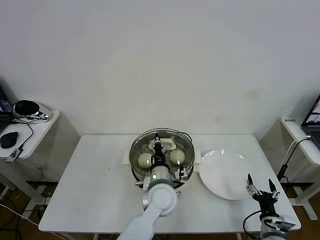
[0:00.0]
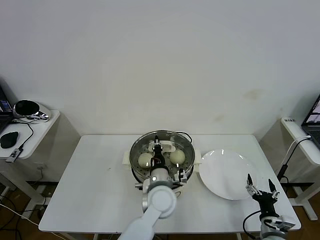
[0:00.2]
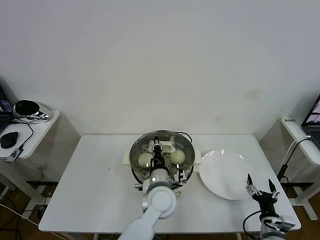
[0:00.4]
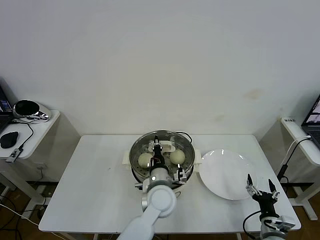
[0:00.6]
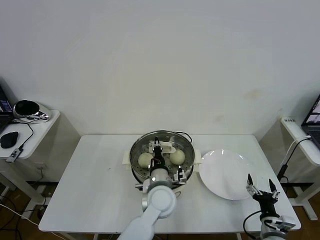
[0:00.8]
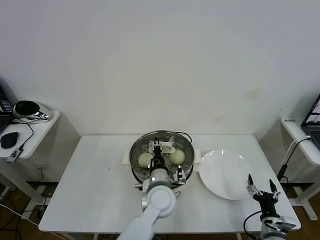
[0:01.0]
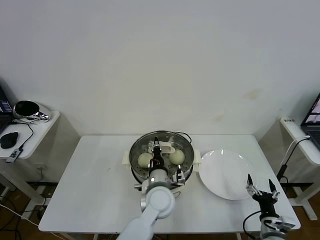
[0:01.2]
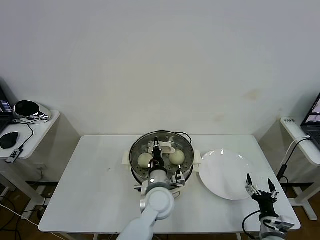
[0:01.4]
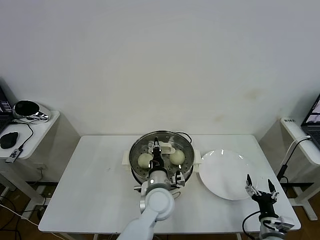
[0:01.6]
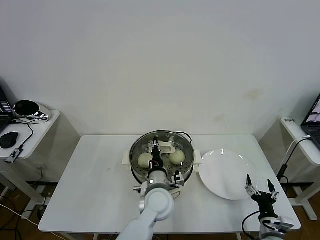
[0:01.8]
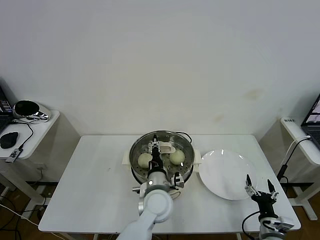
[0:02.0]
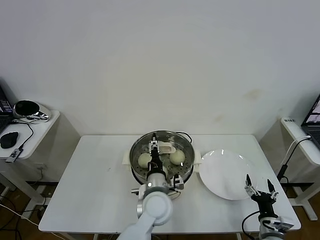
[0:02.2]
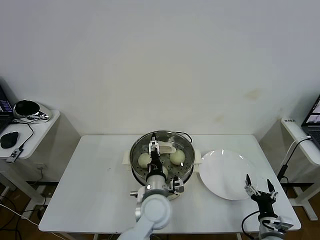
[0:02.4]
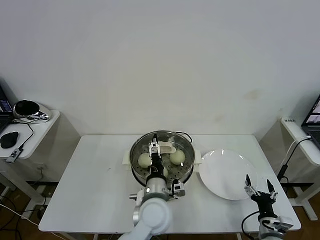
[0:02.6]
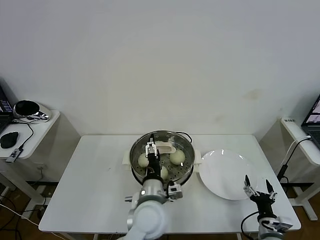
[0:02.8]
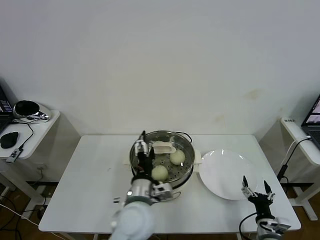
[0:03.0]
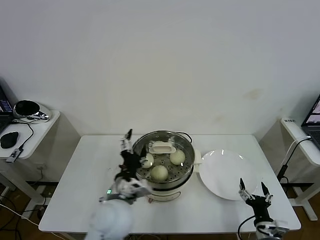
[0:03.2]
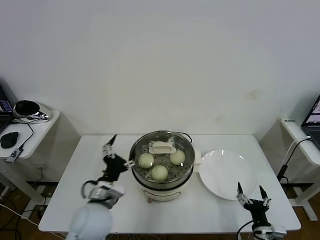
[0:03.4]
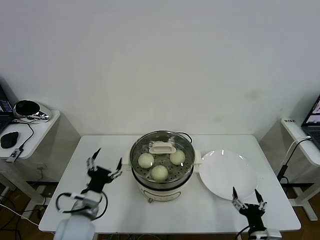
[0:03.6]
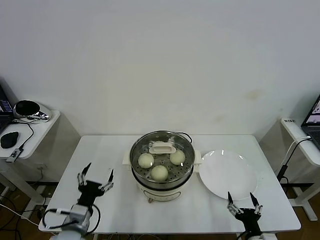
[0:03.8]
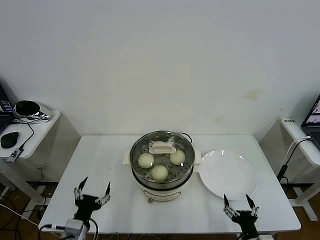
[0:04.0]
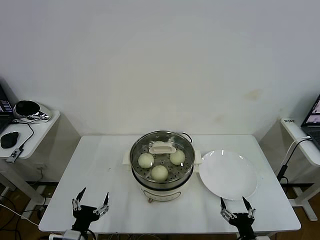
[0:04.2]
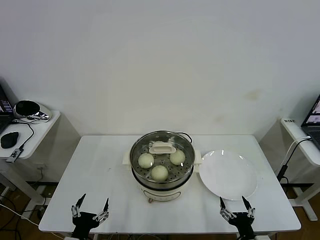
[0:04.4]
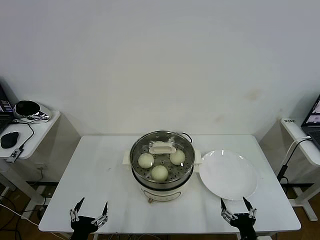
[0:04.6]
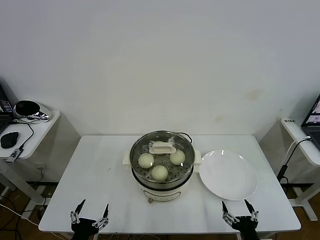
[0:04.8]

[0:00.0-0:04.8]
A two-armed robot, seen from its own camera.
Task of the whole recording: take steamed baozi put them in steamer then cover it.
Step, 0:00.0 to 0:02.6: Place the pot lid on the steamer with left gripper.
0:00.0 to 0:01.6: The grippers move only a little.
0:01.6 to 0:03.2: The left gripper moves to the left, upward and backward, roughly 15 cm, and opens its fingers.
0:03.2 to 0:04.8: The right gripper moves backward and to the left, some 10 cm. Meanwhile the left gripper shifts roughly 25 cm to the left, backward and downward.

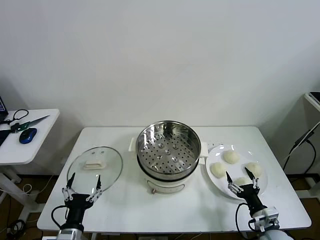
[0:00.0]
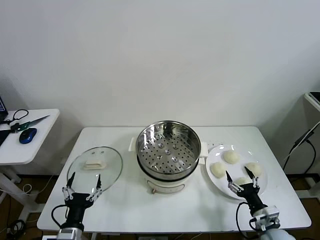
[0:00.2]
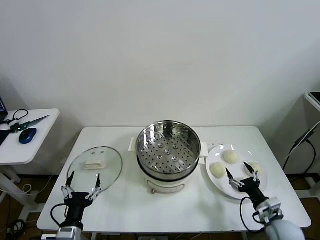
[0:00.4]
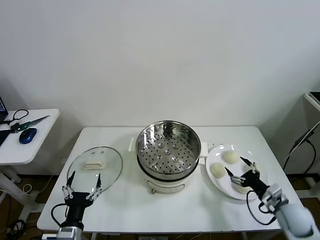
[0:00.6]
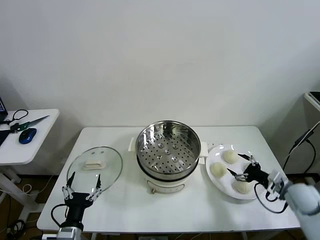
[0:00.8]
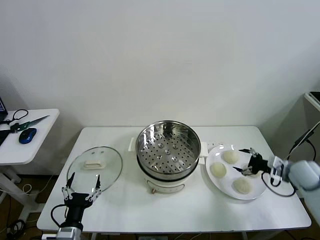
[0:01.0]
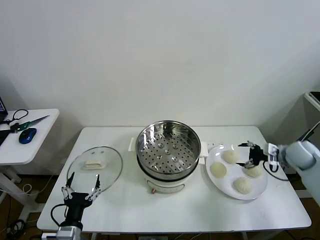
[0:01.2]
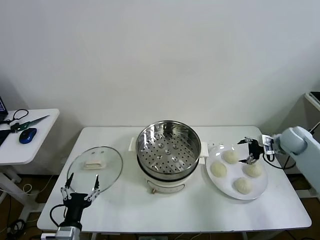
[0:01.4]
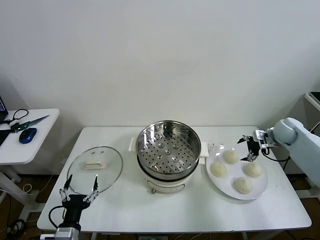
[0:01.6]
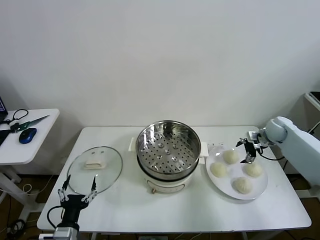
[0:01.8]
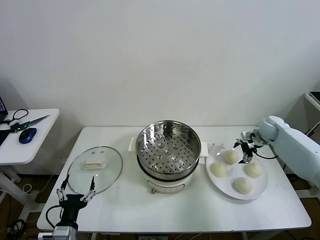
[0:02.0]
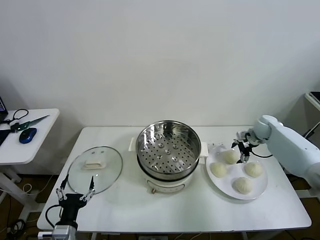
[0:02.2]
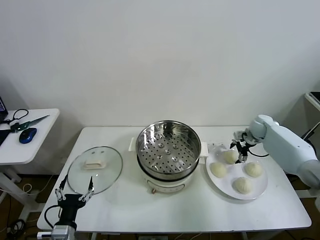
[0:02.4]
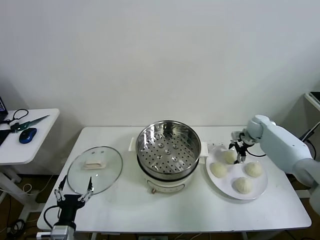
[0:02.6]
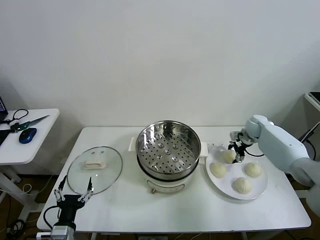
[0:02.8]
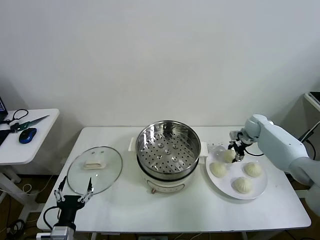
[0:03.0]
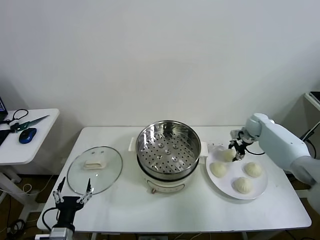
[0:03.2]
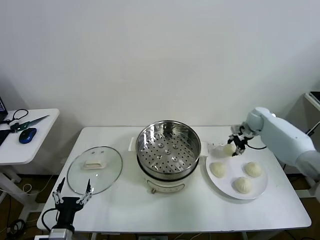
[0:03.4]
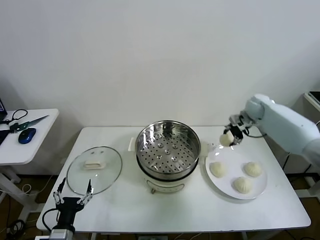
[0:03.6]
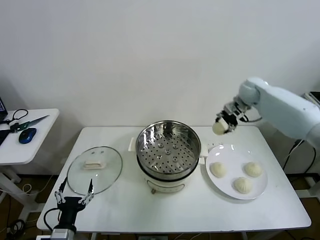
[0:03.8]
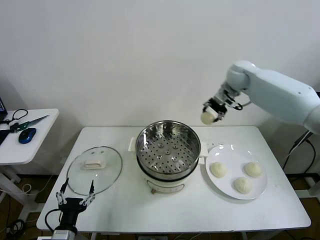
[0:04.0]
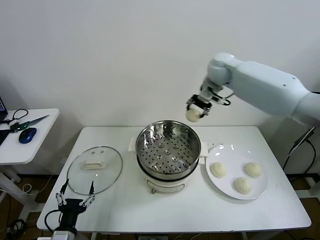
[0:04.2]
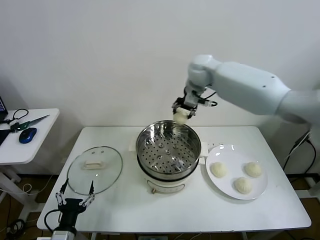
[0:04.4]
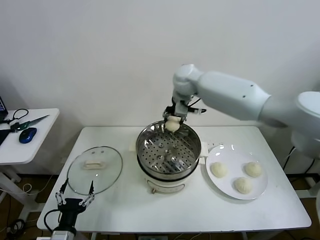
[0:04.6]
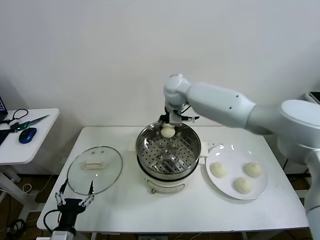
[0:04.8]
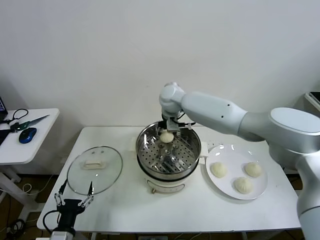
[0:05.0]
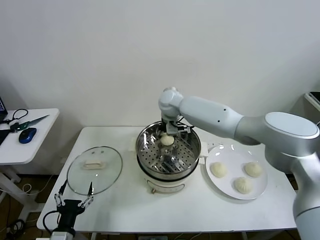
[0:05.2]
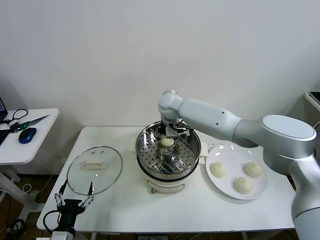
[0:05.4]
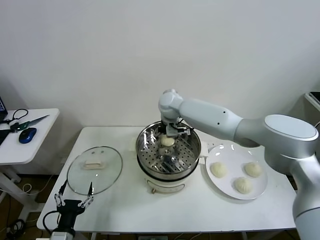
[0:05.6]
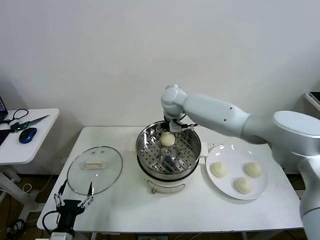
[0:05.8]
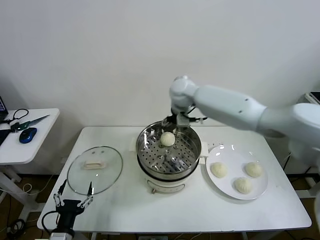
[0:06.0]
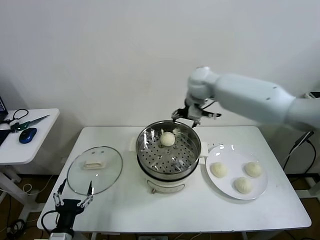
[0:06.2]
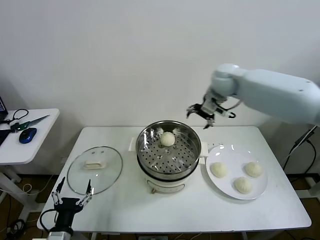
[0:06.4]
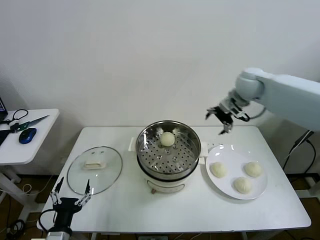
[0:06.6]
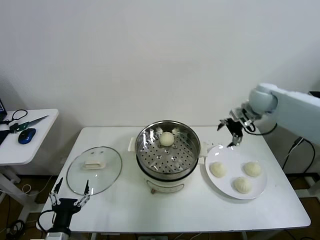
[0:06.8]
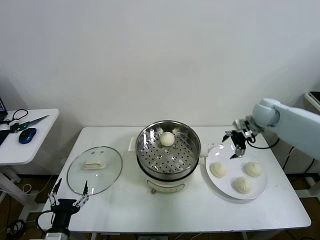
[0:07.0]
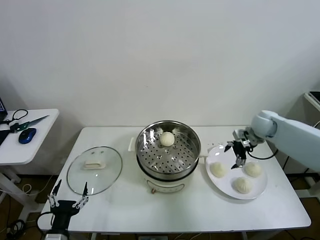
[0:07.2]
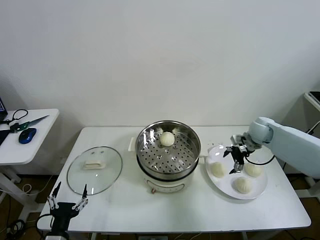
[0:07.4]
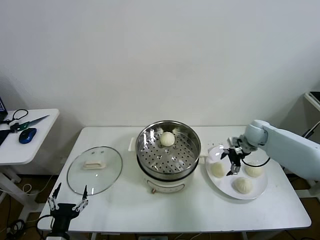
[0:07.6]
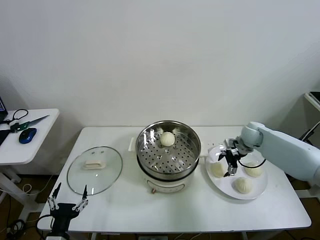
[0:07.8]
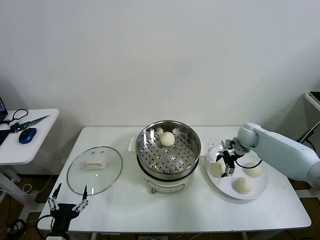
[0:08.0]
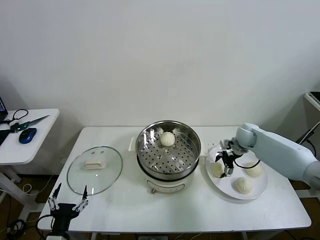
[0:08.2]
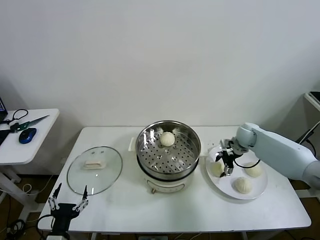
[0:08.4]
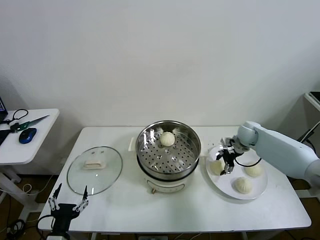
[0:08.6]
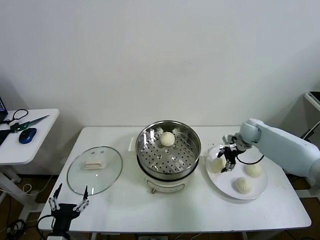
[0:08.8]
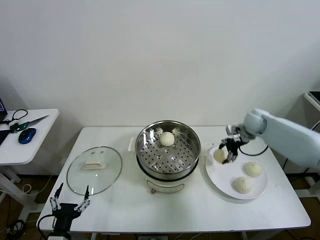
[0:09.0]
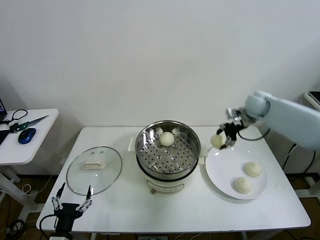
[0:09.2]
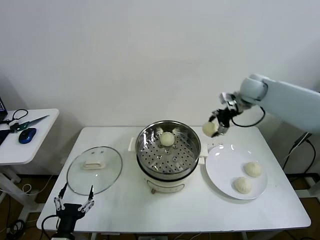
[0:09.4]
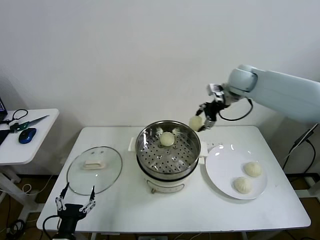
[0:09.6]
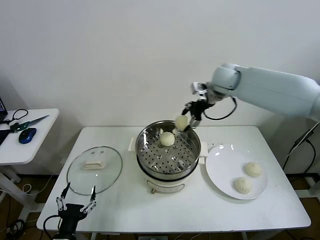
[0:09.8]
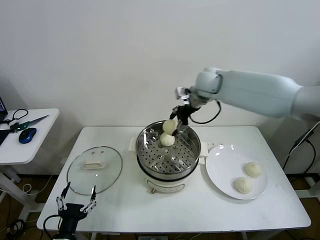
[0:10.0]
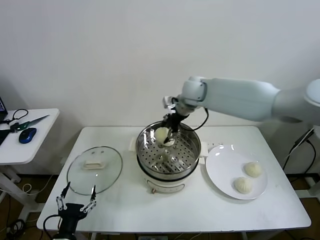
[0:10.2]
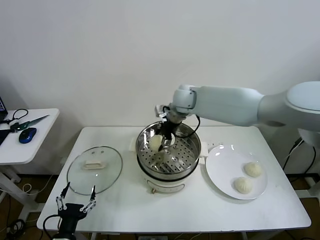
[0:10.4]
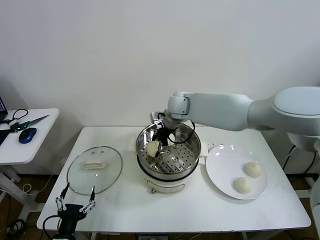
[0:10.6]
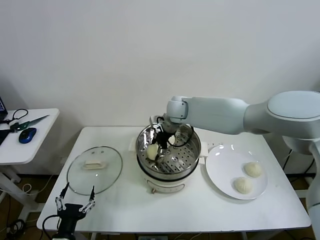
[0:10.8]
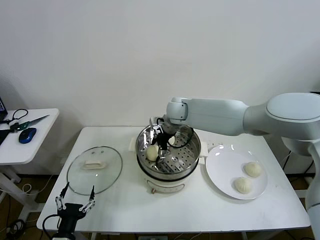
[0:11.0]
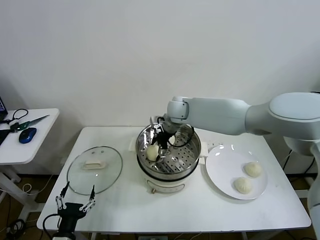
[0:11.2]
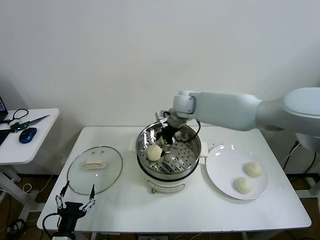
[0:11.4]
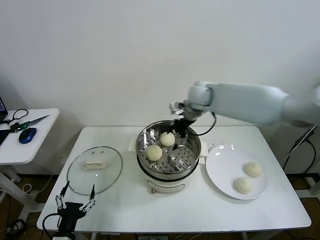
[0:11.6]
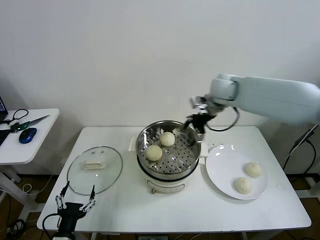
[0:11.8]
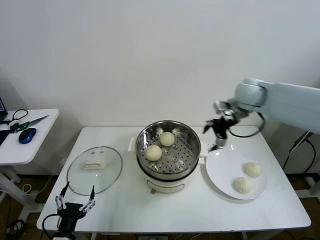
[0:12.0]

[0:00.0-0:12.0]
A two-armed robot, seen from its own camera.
Task of the whole recording: take steamed baozi put them in steamer then cover it.
Step, 0:00.0 to 0:03.0: Grasp the baozi in the plate with right gripper.
Step, 0:03.2 to 0:05.6: Place the baozi on the steamer with right gripper.
Step, 0:05.8 to 0:08.6: Grasp the baozi in the plate with right gripper.
Step, 0:08.8 to 0:11.2: Place the baozi on the steamer with right gripper.
0:01.6 to 0:03.0: The right gripper goes roughly 10 cm forward and to the left, and closes up.
0:03.0 to 0:04.4: The right gripper shifts roughly 40 cm to the left and upward.
0:04.4 to 0:06.0: The right gripper goes downward and returns, approximately 10 cm each way, and opens its fingers.
0:06.0 to 0:07.6: The right gripper is displaced to the right and downward by roughly 35 cm.
0:07.6 to 0:09.0: The right gripper travels upward by roughly 5 cm, and closes up.
0:09.0 to 0:10.4: The right gripper goes roughly 30 cm to the left.
0:10.4 to 0:12.0: The right gripper moves to the right, about 25 cm, and opens its fingers.

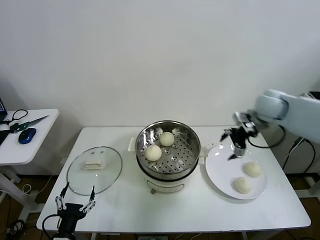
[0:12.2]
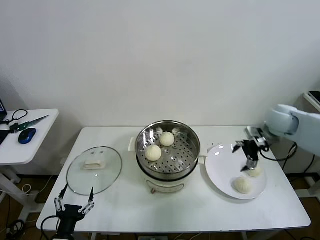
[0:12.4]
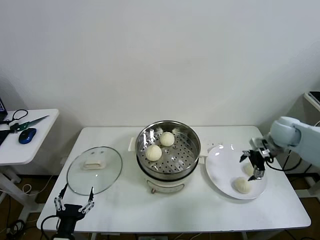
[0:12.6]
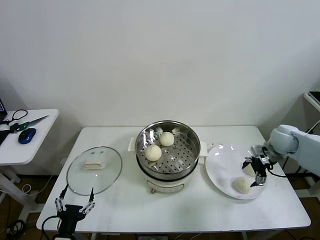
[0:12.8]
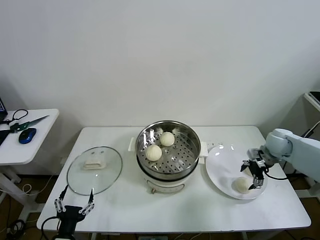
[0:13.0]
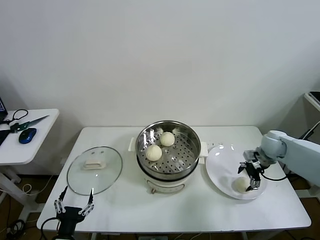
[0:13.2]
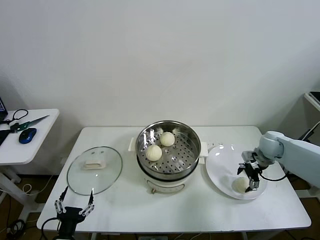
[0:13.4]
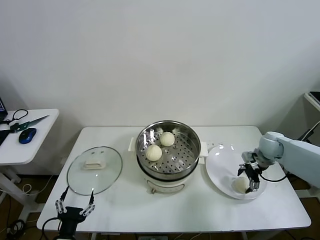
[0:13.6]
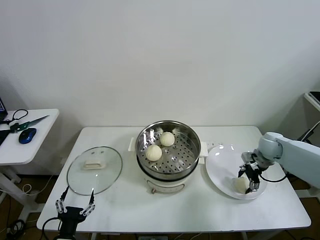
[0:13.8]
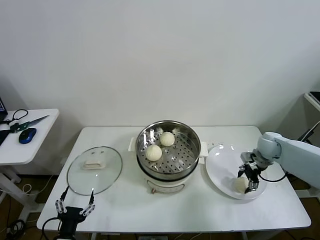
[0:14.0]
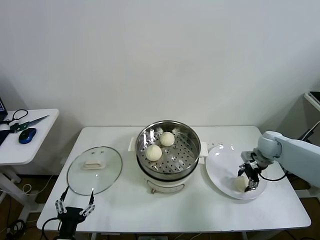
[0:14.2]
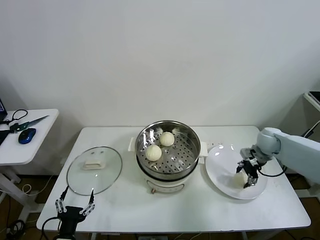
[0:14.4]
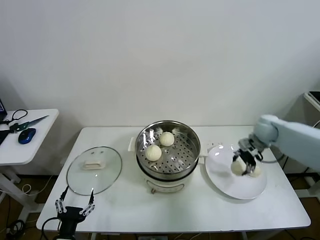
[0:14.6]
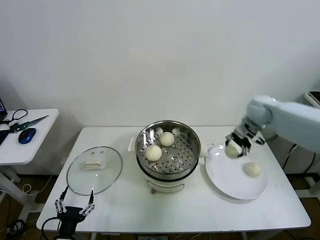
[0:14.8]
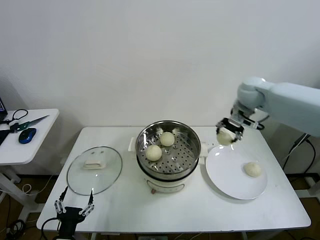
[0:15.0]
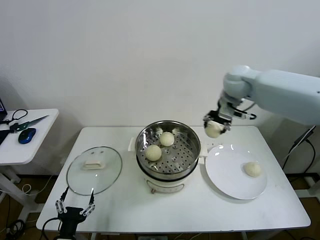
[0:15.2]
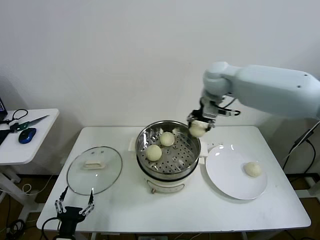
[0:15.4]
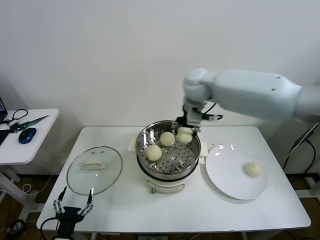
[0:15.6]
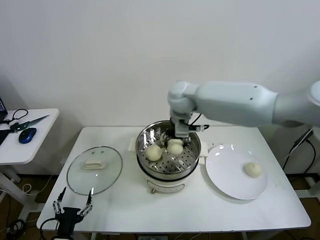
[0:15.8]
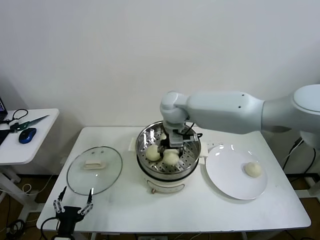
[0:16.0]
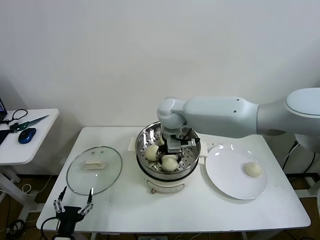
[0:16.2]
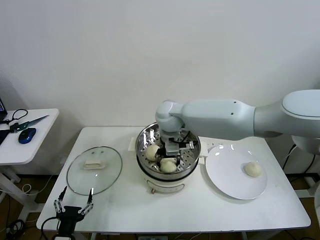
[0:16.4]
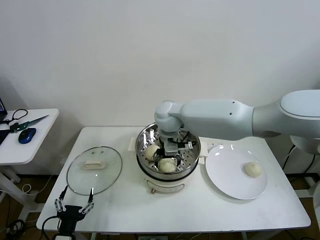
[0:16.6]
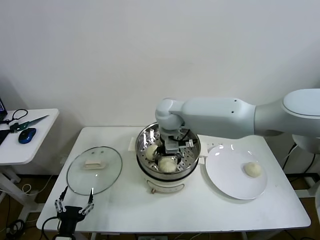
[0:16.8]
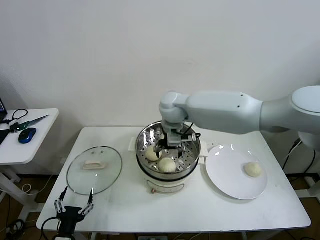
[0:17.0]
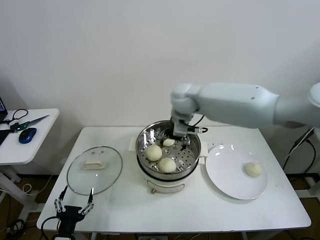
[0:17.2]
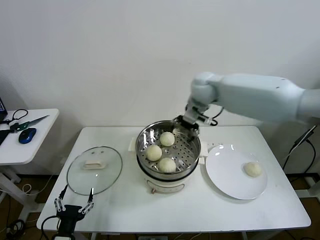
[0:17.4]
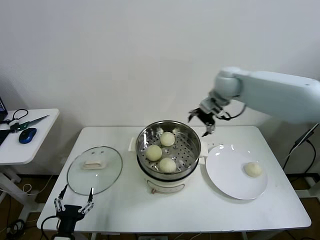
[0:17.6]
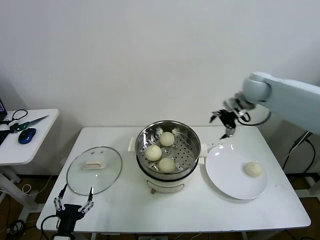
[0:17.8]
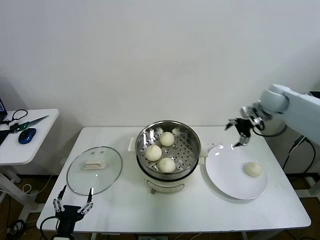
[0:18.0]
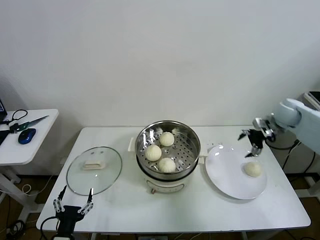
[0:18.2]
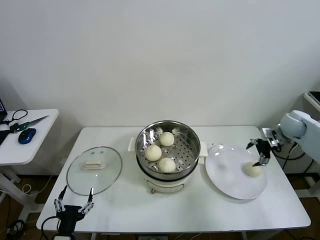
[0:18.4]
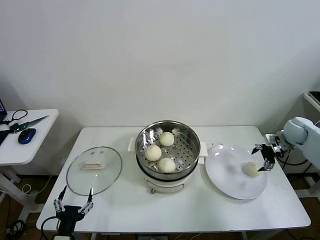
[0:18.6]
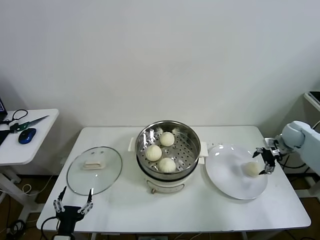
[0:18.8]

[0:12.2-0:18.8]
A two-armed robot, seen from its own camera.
Task of the whole recording: take steamed baozi put them in steamer then cover it.
Step, 0:12.2 to 0:14.2: Grasp the baozi in the plate with right gripper.
Step, 0:14.4 to 0:16.8: Place the baozi on the steamer with right gripper.
0:12.2 to 0:13.8: The right gripper moves downward, roughly 15 cm, and closes up.
0:13.8 to 0:15.4: The right gripper shifts roughly 35 cm to the left and upward.
0:15.4 to 0:17.2: The right gripper shifts about 10 cm to the left and downward, and opens up.
0:17.2 to 0:18.8: The right gripper moves to the right, about 40 cm.
